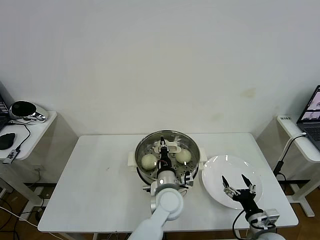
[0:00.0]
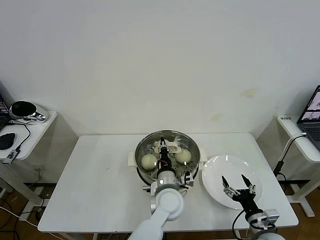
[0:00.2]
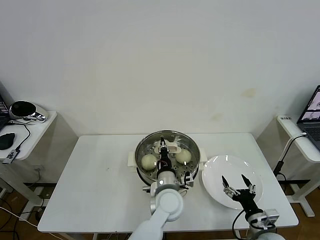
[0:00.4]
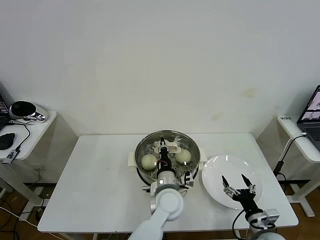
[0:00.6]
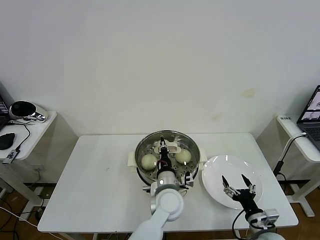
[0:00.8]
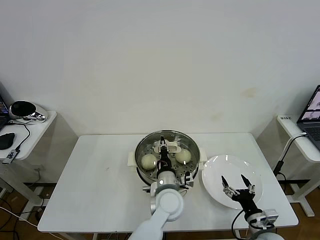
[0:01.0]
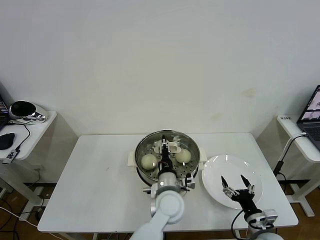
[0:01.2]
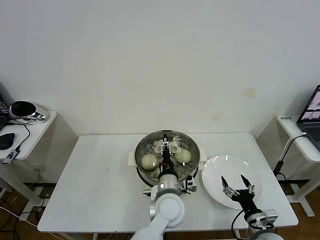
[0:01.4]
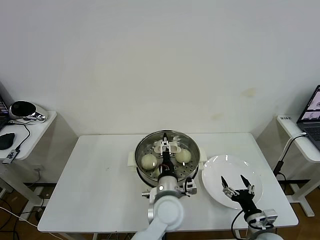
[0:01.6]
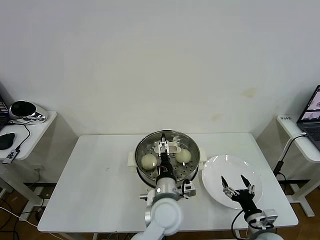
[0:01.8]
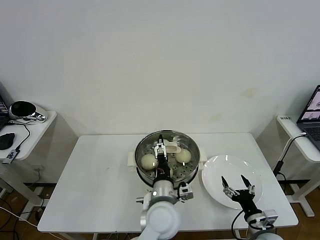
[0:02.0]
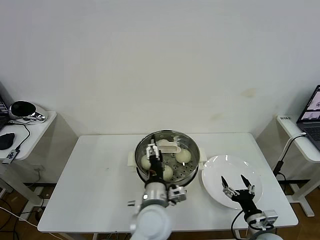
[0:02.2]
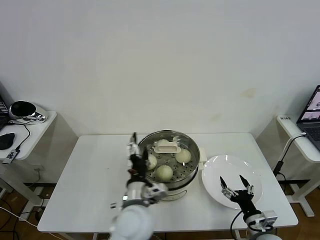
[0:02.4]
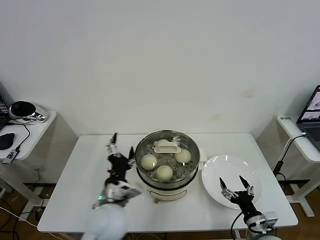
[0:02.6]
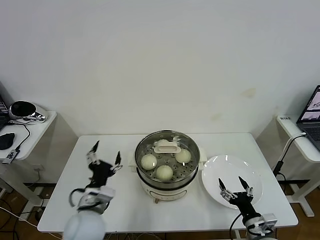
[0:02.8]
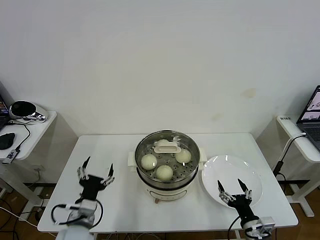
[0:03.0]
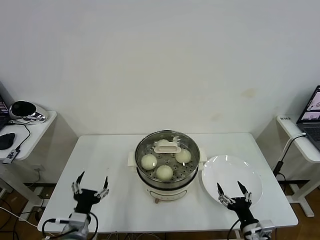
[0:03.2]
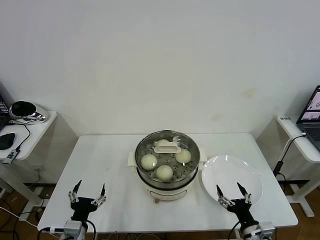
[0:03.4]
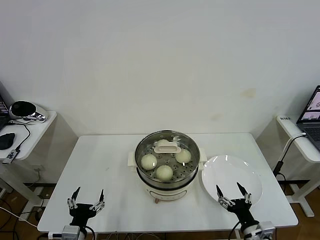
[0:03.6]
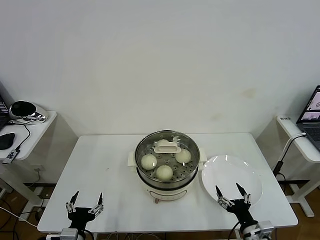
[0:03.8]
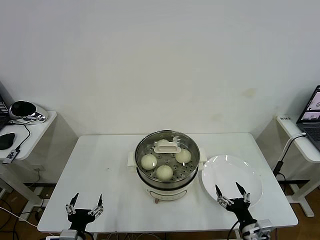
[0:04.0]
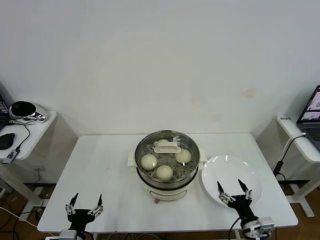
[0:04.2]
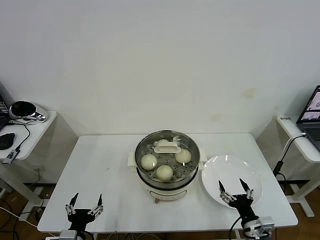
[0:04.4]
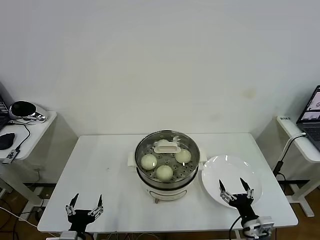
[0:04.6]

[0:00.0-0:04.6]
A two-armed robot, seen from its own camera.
Task of the whole recording: take steamed baozi put them in steamer then cover it.
0:00.0 to 0:01.6: The left gripper opens its fingers.
0:01.6 to 0:03.0: The left gripper moves to the left, approximately 25 cm.
0:03.0 to 0:04.6: The left gripper shifts some 10 cm backward and downward.
